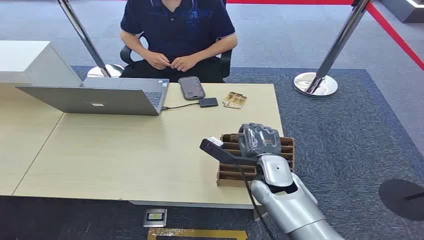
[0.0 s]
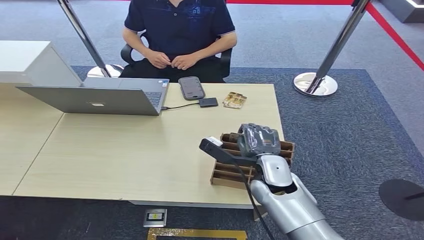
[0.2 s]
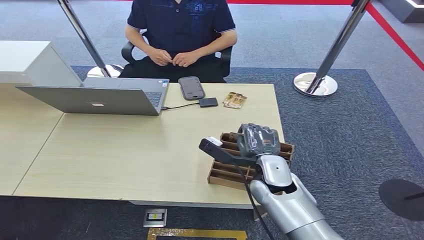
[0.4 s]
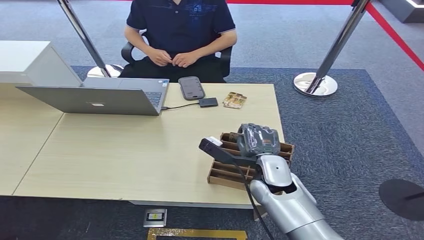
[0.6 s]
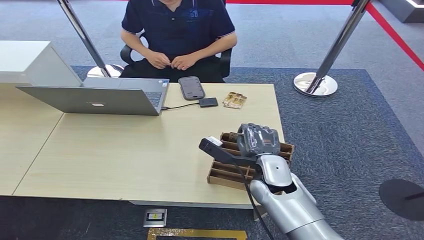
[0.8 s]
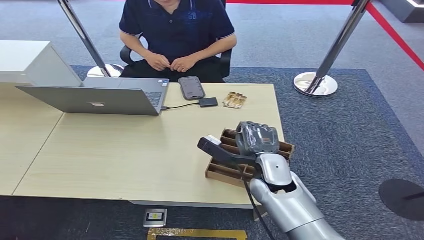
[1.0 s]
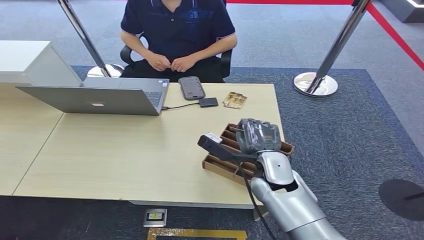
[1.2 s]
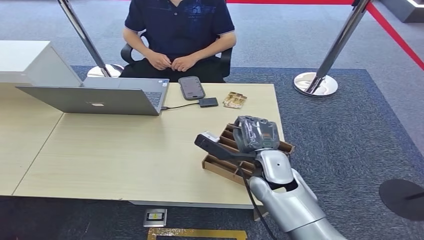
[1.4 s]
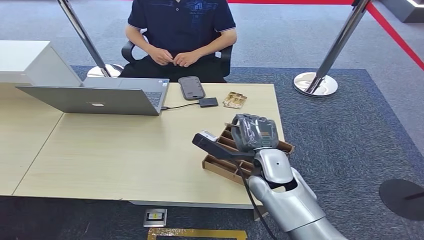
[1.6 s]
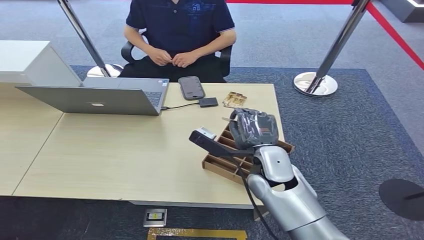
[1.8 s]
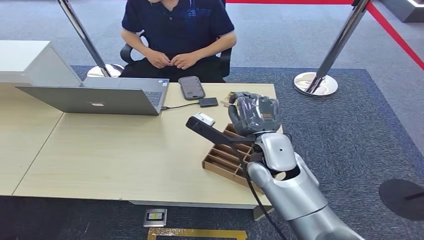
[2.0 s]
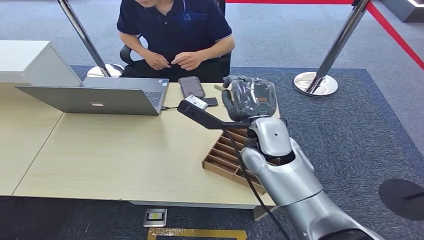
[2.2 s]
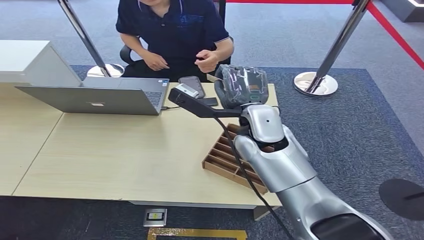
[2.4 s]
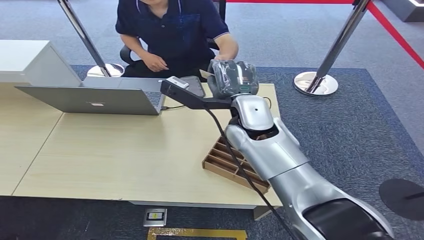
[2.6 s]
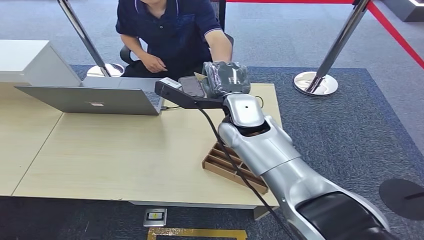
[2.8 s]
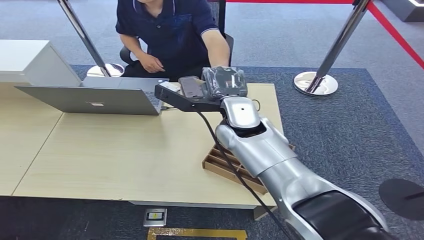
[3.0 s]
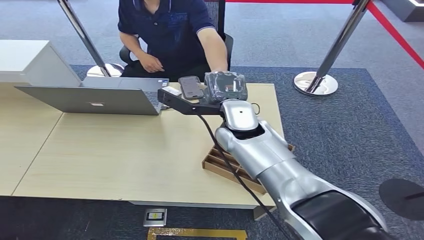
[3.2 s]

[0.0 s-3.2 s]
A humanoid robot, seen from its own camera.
Task of the whole recording: Pick up the card and hand it over to the target person.
Step, 0.0 to 2.0 s: Pick up the key card from the card box.
Step, 2.2 to 3.2 s: Hand the key card to the target.
1.6 to 3.2 s: The right hand travels forward and upward by roughly 10 cm.
